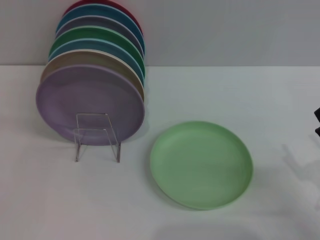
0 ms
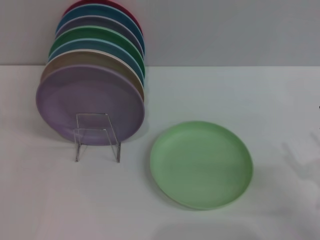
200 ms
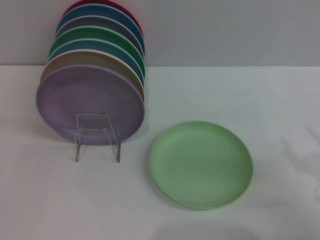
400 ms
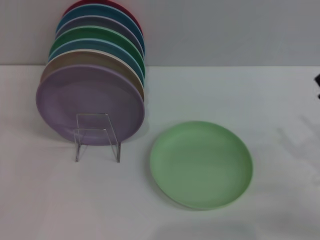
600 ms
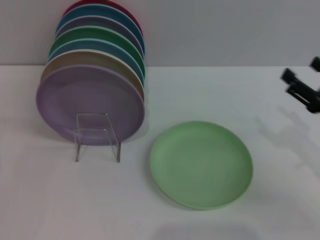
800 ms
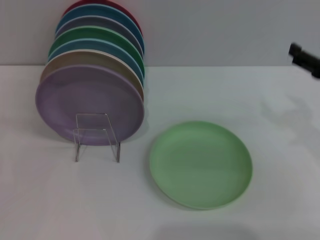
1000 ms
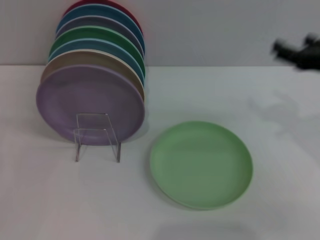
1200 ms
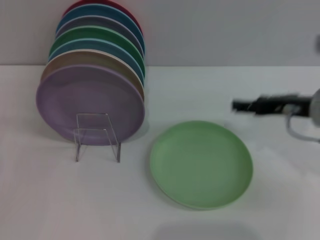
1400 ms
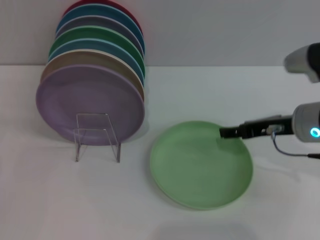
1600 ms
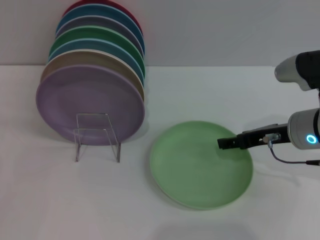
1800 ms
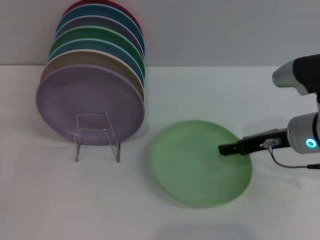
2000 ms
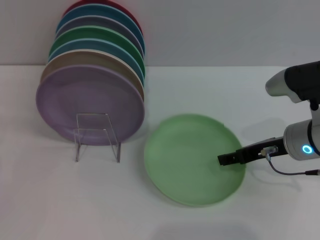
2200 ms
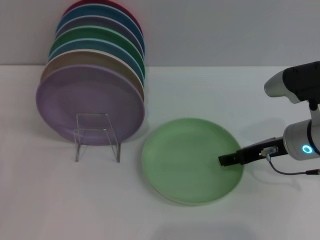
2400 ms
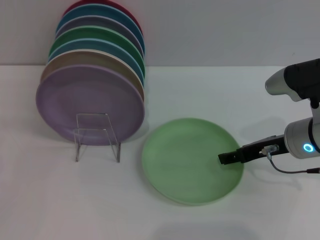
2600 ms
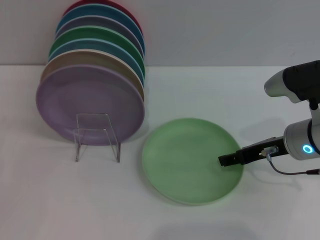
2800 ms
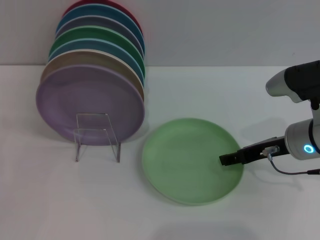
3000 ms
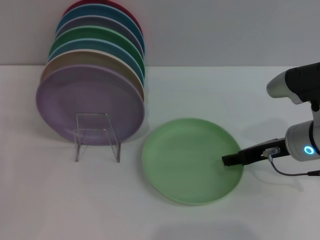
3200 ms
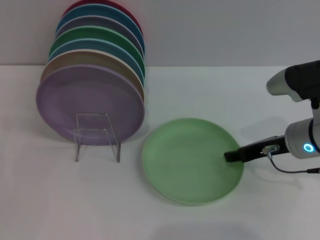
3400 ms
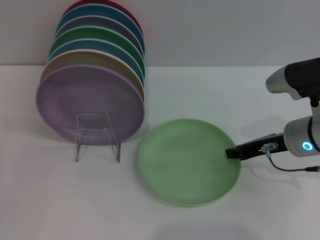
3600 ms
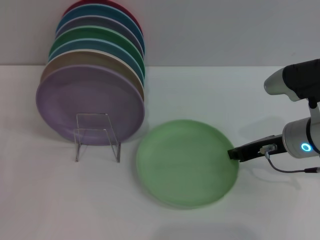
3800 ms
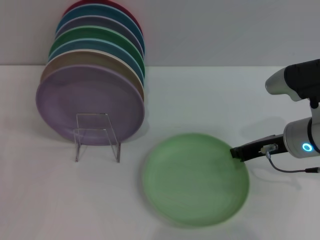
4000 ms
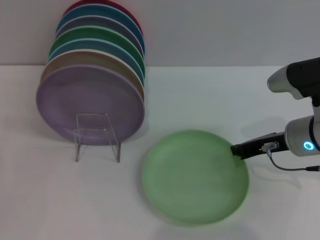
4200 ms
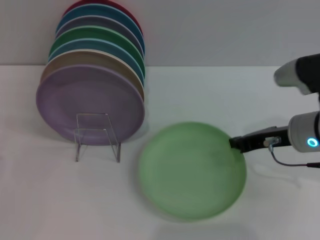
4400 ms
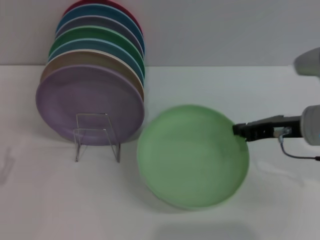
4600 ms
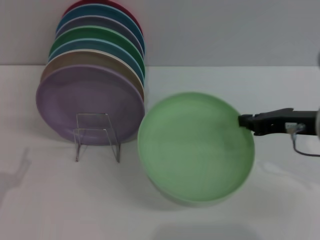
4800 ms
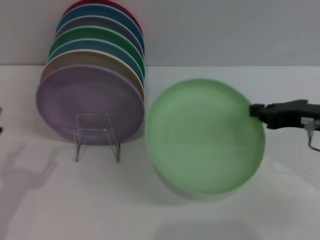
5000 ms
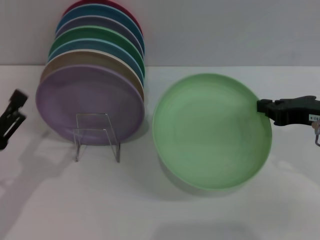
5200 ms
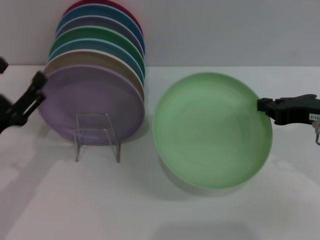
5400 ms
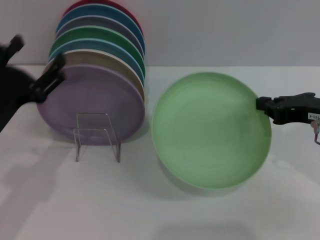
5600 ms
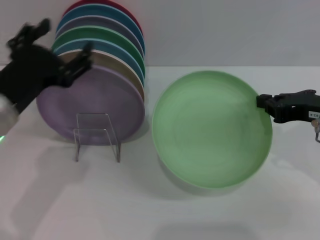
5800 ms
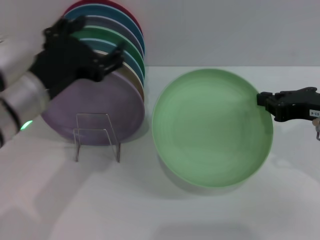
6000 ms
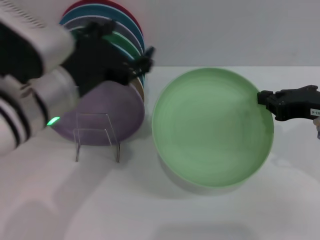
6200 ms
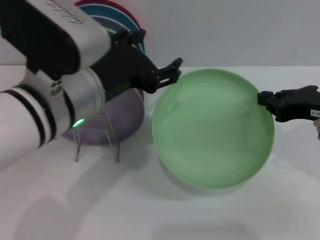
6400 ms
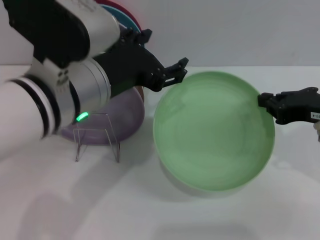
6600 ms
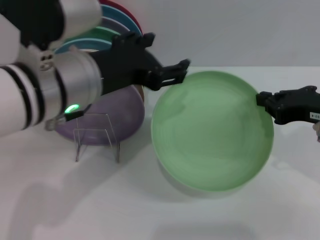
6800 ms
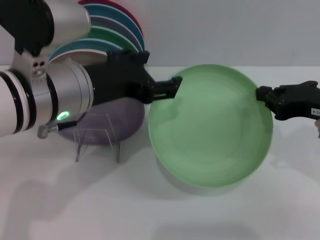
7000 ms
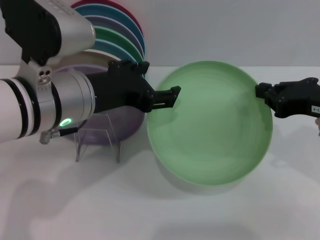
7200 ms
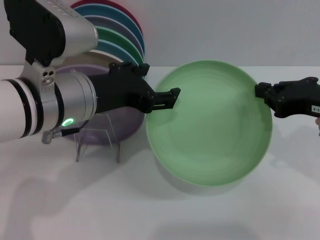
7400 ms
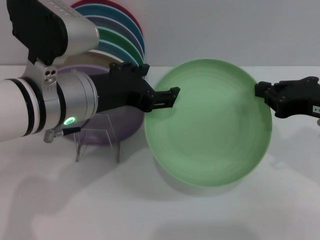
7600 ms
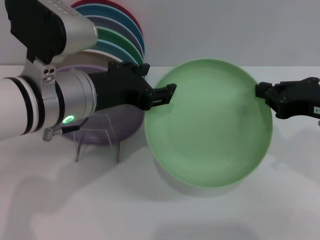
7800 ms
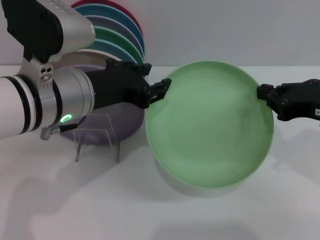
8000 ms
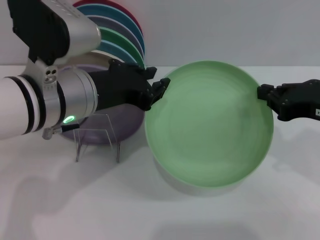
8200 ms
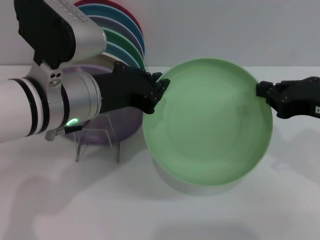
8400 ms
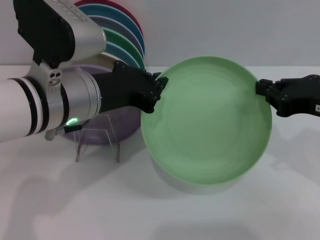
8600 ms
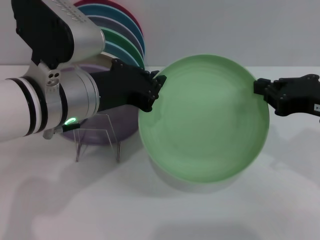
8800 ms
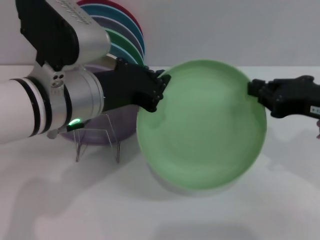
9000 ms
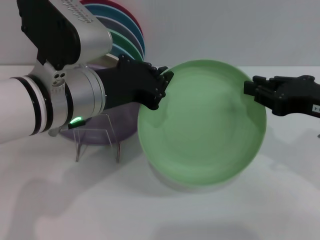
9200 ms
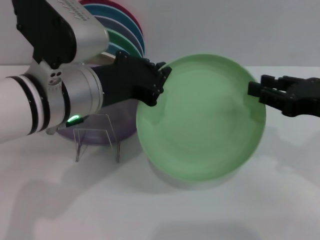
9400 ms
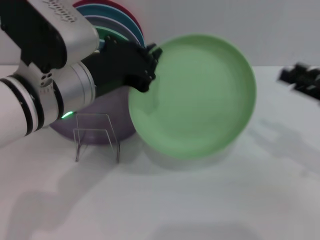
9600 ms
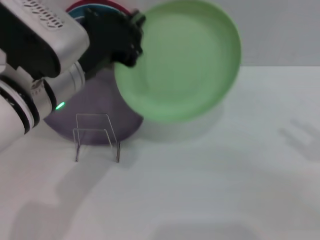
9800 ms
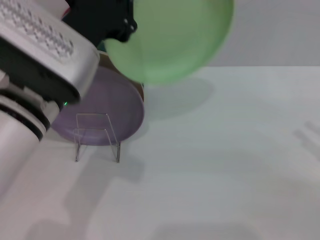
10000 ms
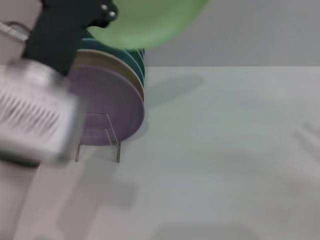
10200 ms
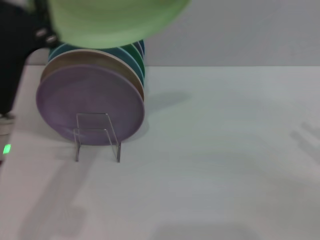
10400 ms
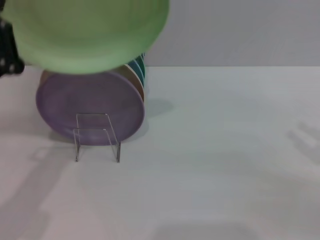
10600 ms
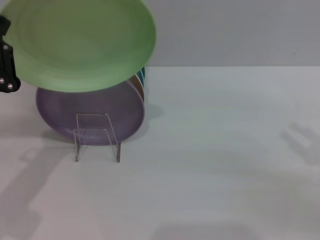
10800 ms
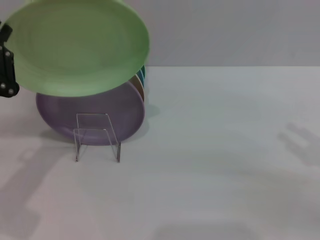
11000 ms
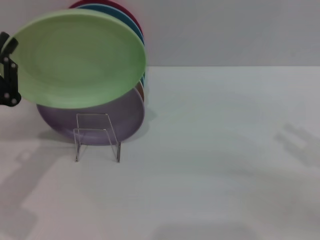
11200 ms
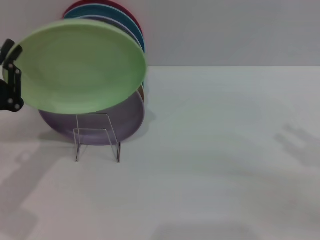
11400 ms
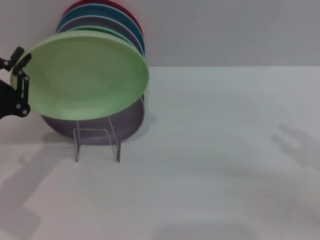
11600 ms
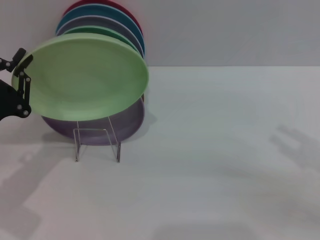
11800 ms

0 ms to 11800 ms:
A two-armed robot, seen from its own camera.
Task of the whole recording: Grip the plate with one hand, pass it to the other, then set it on the shelf.
Step, 0 ms to 4400 ms: Pick up the plate with the right gripper.
Step, 4600 ms to 9400 ms: Pass the plate from the right gripper to the left gripper.
0 ms to 1400 ms: The right gripper travels forward, upward and to the left by approximately 20 cm.
3000 ms to 4400 ms: The right gripper closes its fingers.
4400 ms to 6000 ms: The left gripper travels upward, to the right and forward by approximately 25 cm, while the right gripper is displaced upward by some 5 cm.
7400 ms to 8800 ms: The left gripper closes.
8800 ms to 10400 ms: The left gripper moves to the left and backward, about 10 cm, while the right gripper is displaced to the right, downward and backward by about 15 cm, and opens up.
10400 ms to 11800 ms: The left gripper heads to the left and downward, covering about 10 cm.

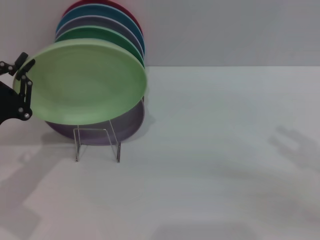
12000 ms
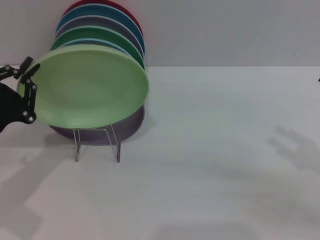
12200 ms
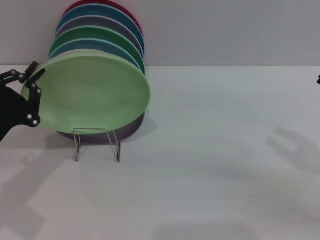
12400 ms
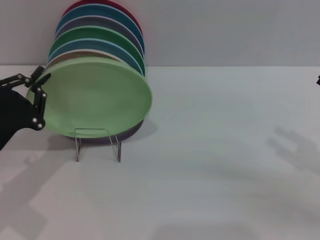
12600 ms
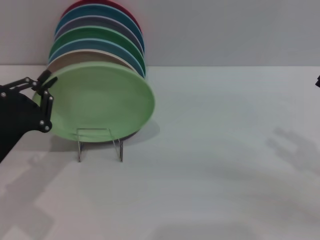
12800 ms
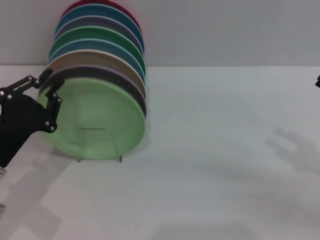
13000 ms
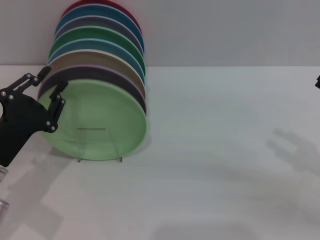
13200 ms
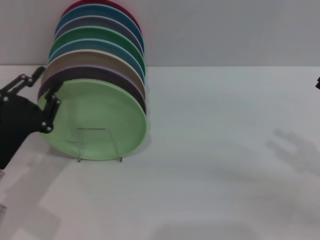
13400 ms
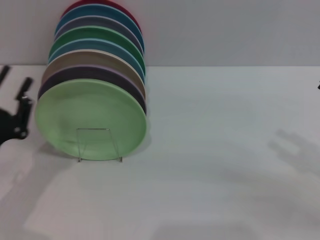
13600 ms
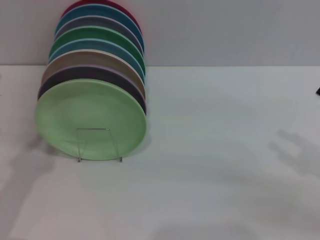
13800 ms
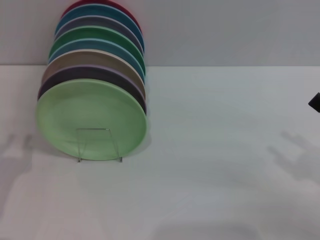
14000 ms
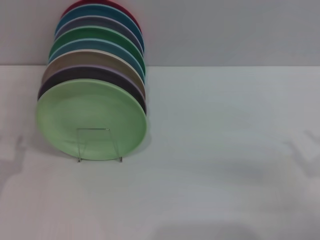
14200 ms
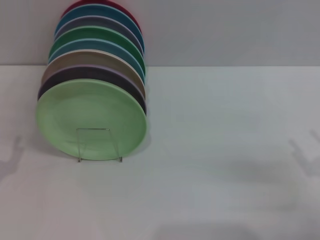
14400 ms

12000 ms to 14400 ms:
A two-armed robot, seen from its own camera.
Task of the whole recording: Grip the plate with one hand, pass it to the other, then set it on the shelf.
12000 ms to 13200 ms: The grippers stay close to where they were, moving slightly.
13200 ms to 14400 ms: The left gripper moves backward and to the left, about 10 cm.

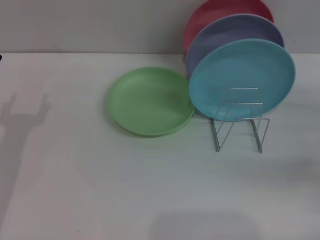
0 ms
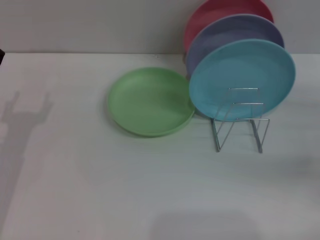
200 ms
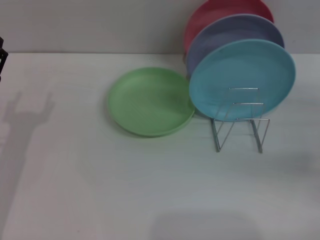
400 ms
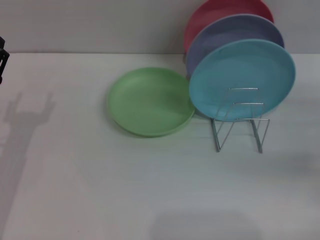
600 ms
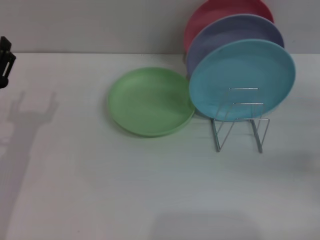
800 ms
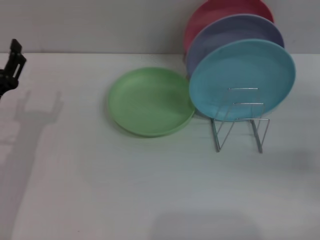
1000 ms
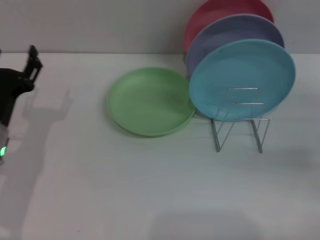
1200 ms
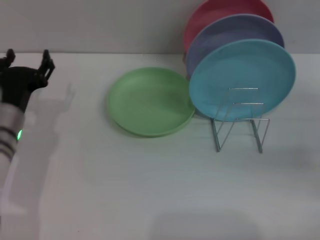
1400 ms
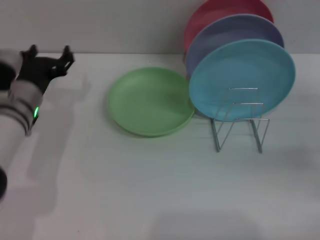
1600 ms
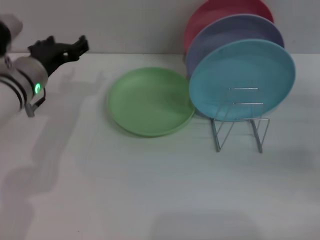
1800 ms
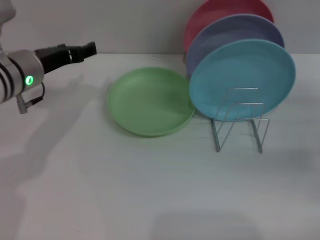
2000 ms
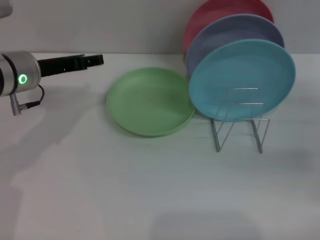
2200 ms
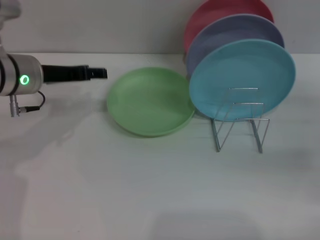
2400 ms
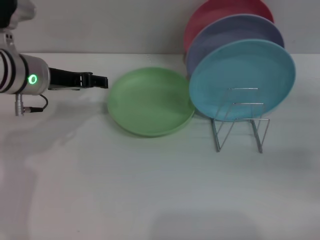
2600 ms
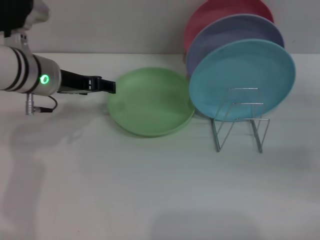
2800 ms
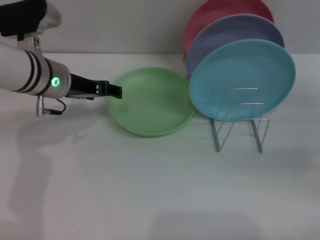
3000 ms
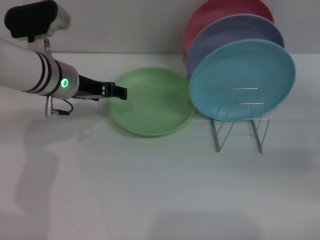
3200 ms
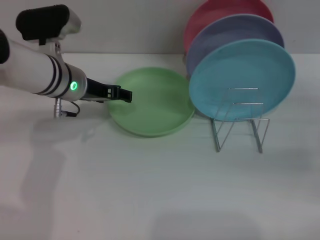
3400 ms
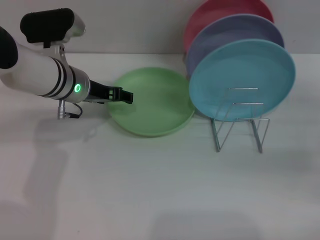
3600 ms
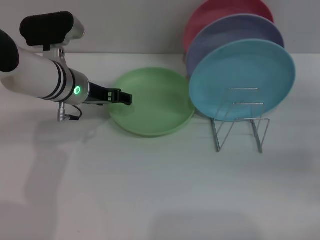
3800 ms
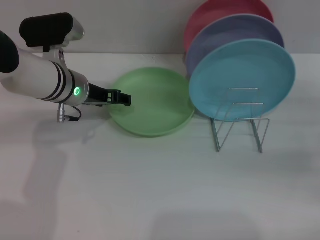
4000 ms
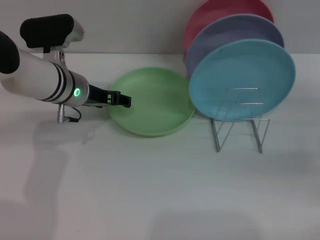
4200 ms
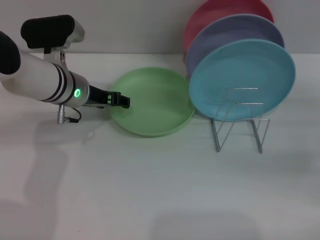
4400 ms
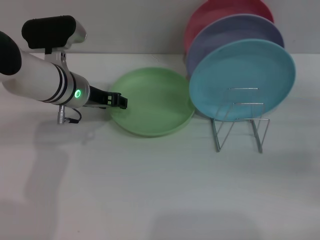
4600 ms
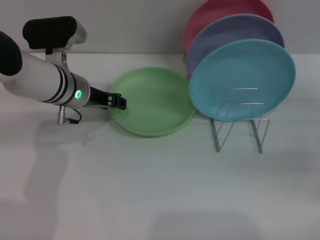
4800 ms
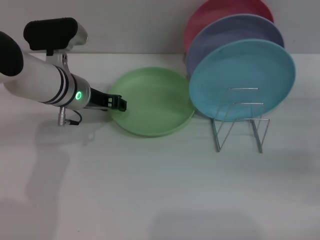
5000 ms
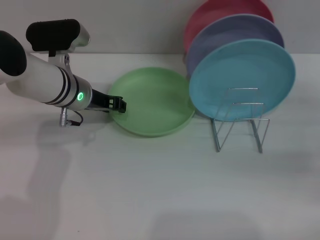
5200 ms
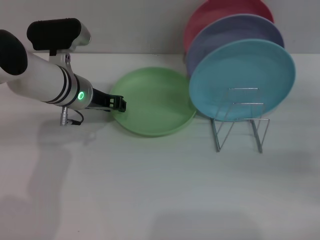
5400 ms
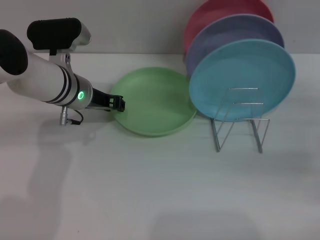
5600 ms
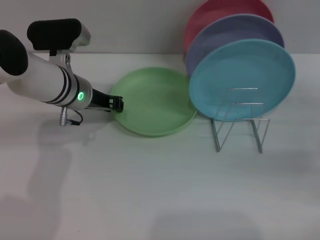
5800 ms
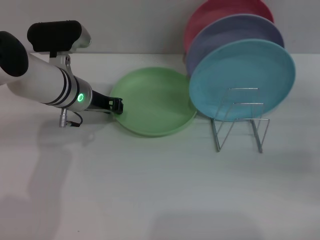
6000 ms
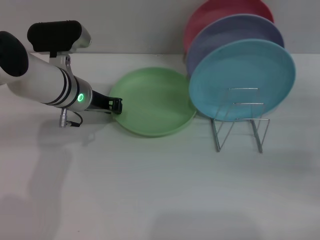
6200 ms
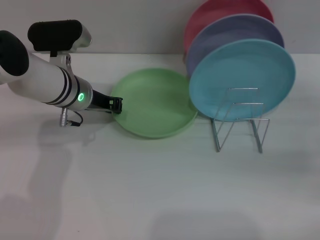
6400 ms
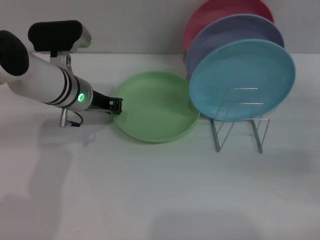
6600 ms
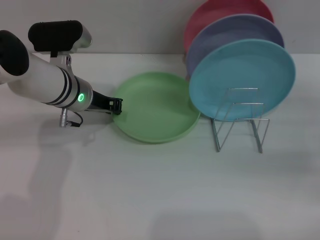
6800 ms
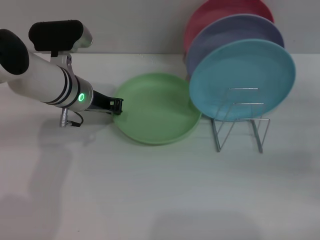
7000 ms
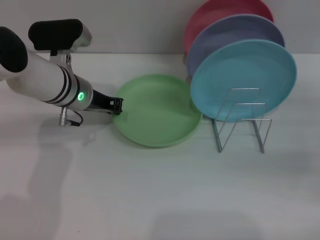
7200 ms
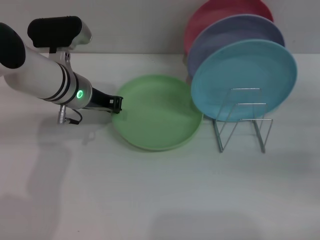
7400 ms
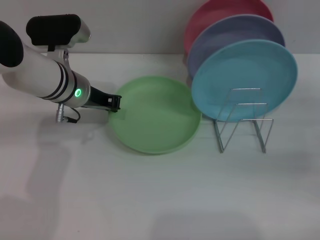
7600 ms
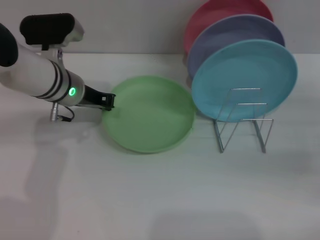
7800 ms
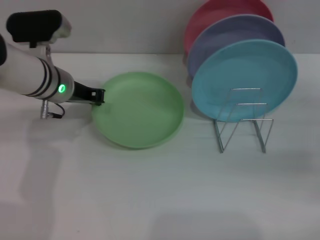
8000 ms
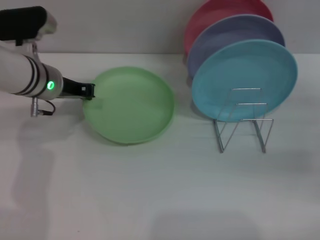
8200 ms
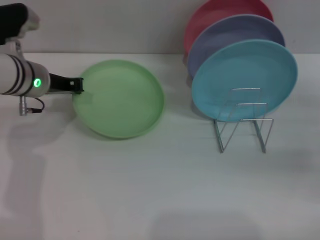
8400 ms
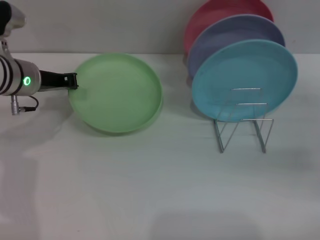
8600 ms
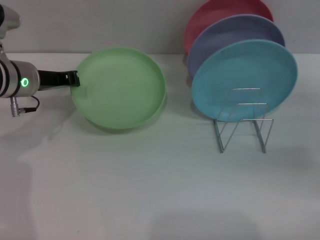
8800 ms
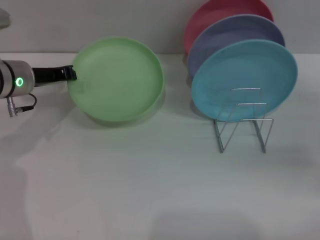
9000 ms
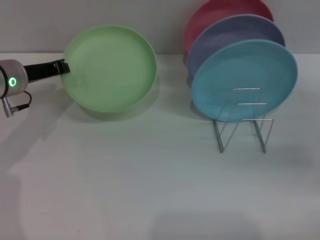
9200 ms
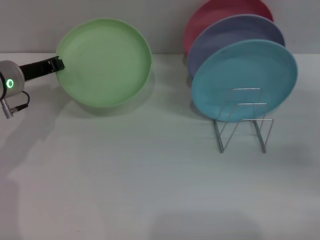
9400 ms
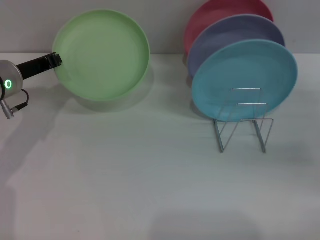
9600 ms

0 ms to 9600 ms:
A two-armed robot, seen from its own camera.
Task of the whole recording: Grip the plate with one hand, pass it to the other, then set it on the shelf.
0 ms to 1600 ms: The left gripper goes roughly 10 cm forward and to the right.
1600 ms to 3200 ms: The left gripper ends up about 5 cm from where it was.
3200 ms to 4800 ms: The grippers stay close to where they were, moving slightly.
4800 ms to 6400 ms: The left gripper closes.
6400 ms to 8000 ms: The grippers make only small movements.
8000 ms to 9600 ms: The left gripper heads to the left, covering roughly 10 cm.
